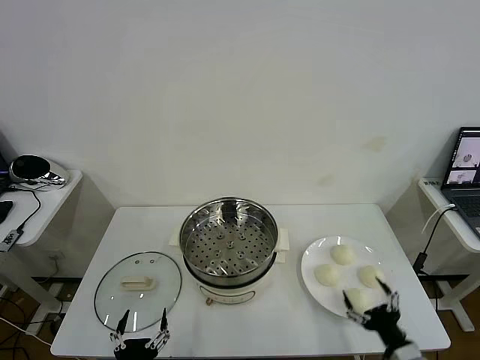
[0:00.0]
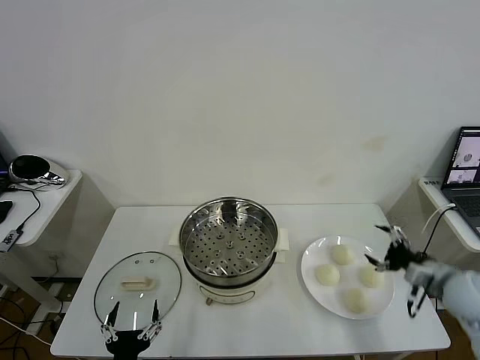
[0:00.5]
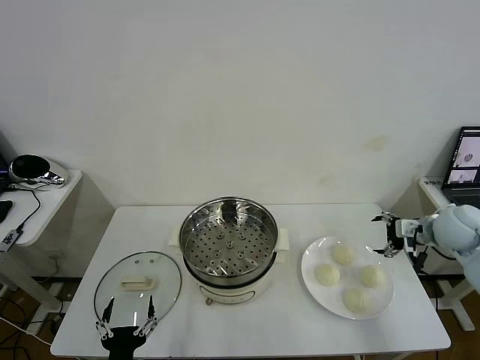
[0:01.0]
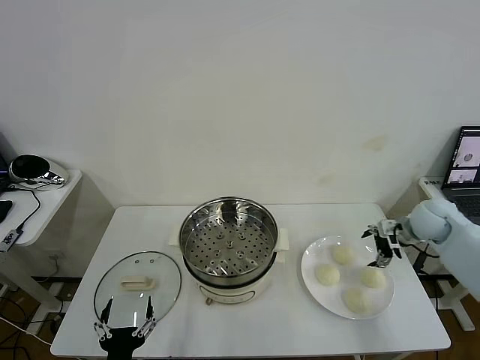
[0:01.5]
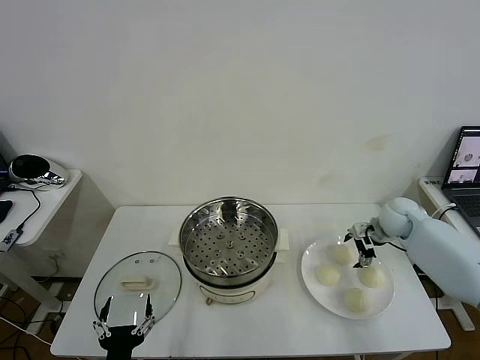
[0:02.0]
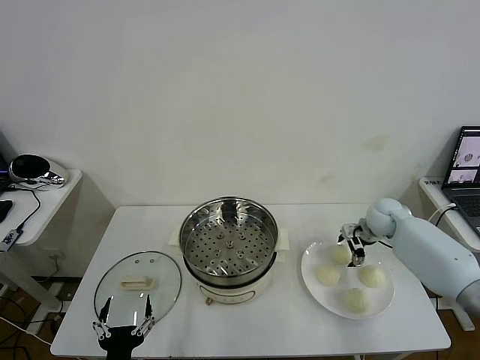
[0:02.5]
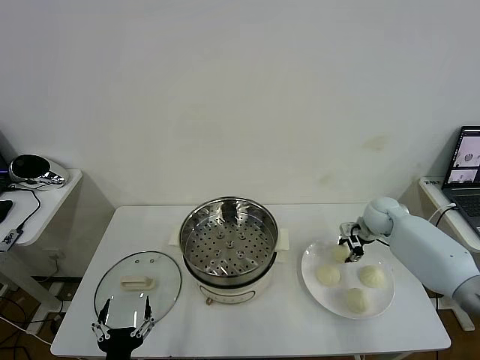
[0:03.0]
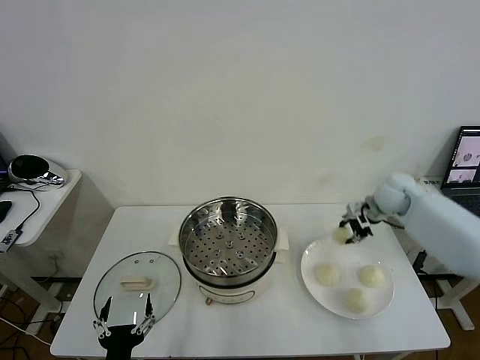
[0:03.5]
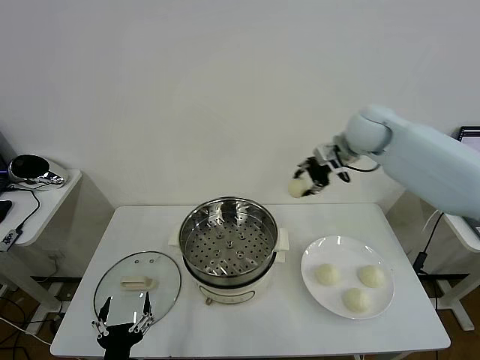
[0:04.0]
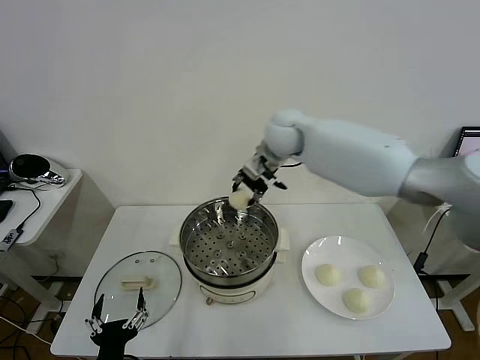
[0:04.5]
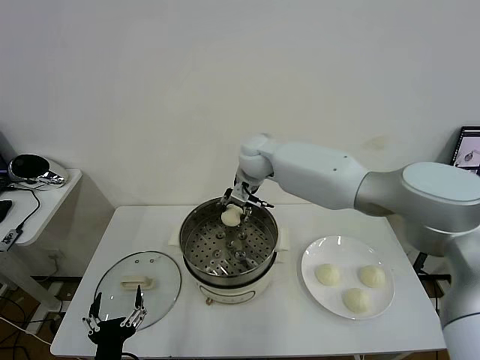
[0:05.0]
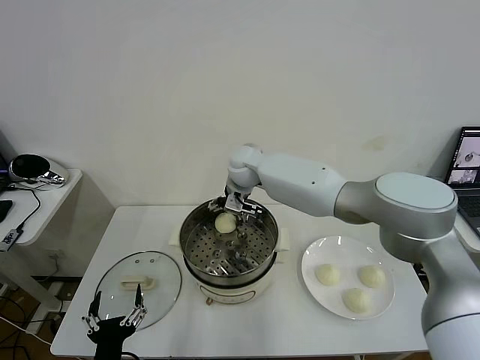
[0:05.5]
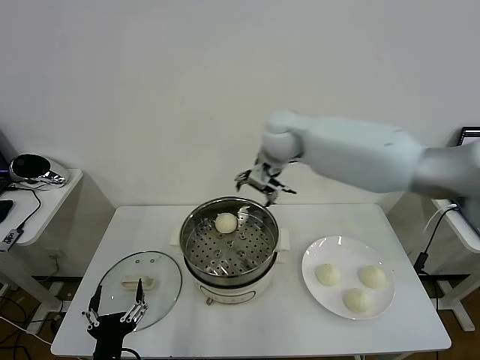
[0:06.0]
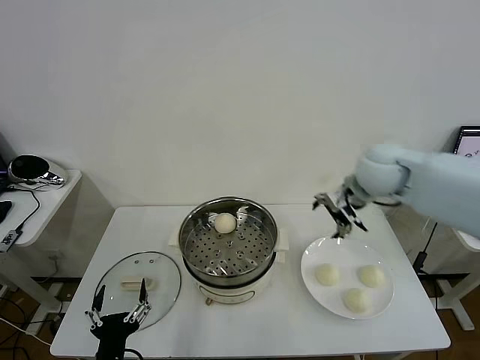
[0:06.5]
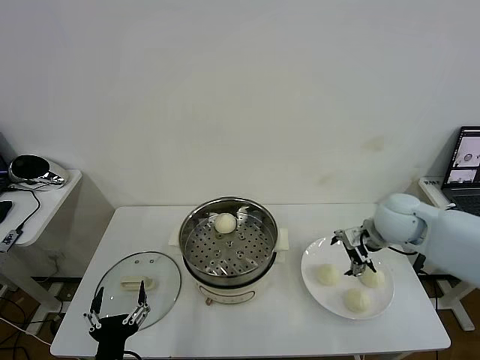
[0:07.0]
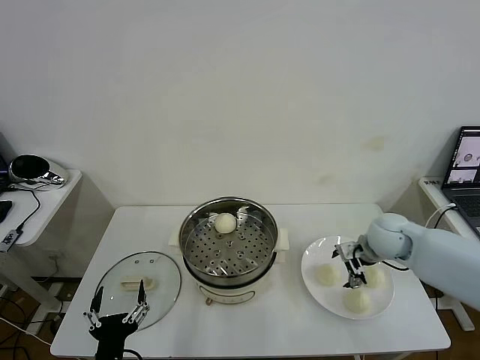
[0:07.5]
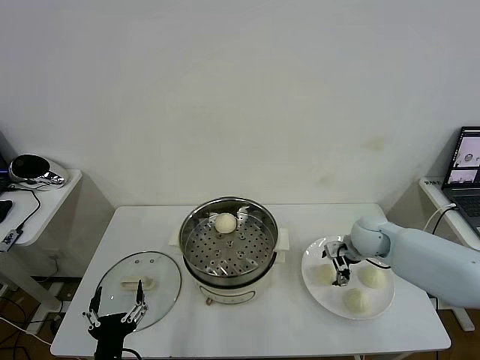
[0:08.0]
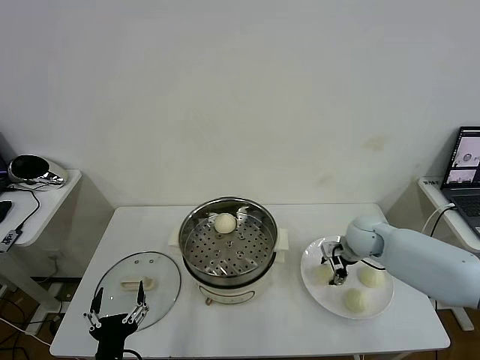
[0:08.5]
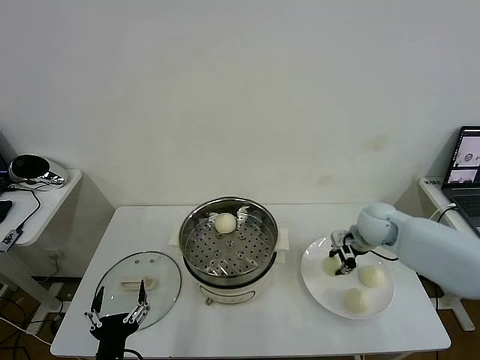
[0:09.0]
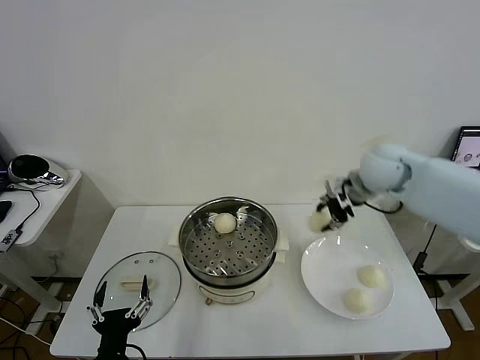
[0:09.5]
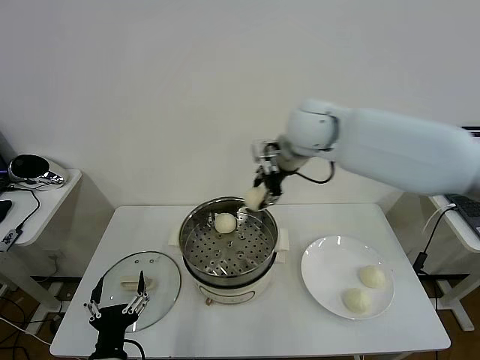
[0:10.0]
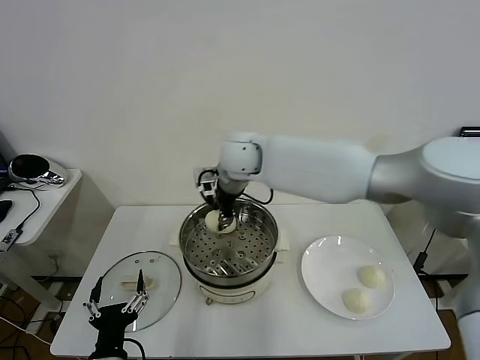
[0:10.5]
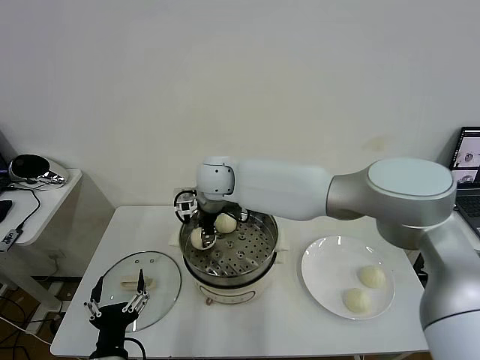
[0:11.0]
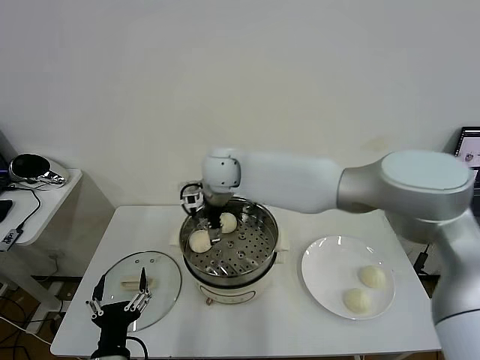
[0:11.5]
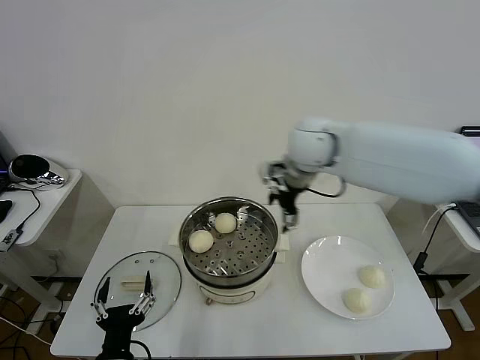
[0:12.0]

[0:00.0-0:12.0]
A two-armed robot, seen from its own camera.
Task of the whole recording: take steamed baozi put them in steamer then cover it.
Step, 0:00.0 to 0:02.5: Grasp the baozi in the plate with right gripper.
Step, 0:03.0 to 0:05.5: Place the baozi on the steamer with right gripper.
Step, 0:06.0 to 0:08.5: Grasp the baozi in the plate with right gripper.
Step, 0:09.0 to 0:11.0: Place the baozi on the steamer with right gripper.
0:02.0 to 0:04.0: The right gripper travels upward and to the left by approximately 30 cm, and closes.
0:04.0 to 0:06.0: The right gripper travels to the left by about 5 cm, and opens.
0:06.0 to 0:08.0: The right gripper is displaced downward and to the right by roughly 30 cm.
0:08.0 to 0:10.0: The right gripper shifts roughly 35 cm upward and to the left, and closes up.
0:10.0 to 0:12.0: The right gripper travels to the left and back again, roughly 15 cm each way, and opens its fingers.

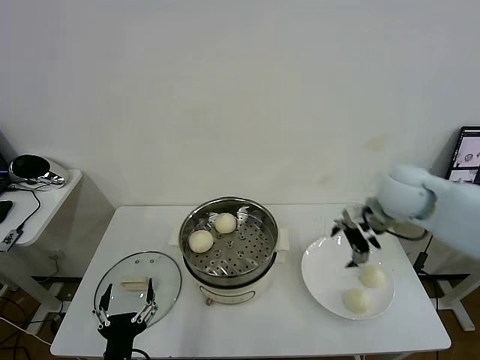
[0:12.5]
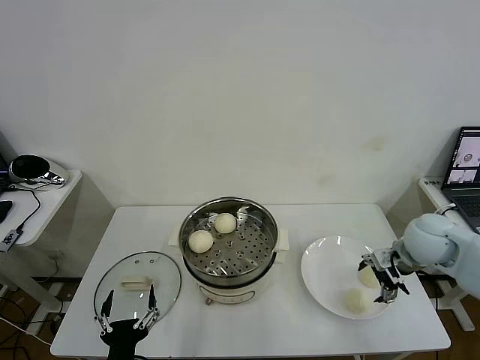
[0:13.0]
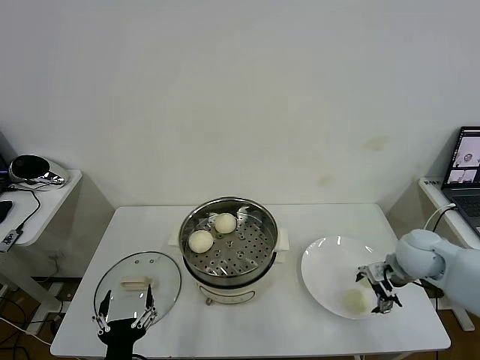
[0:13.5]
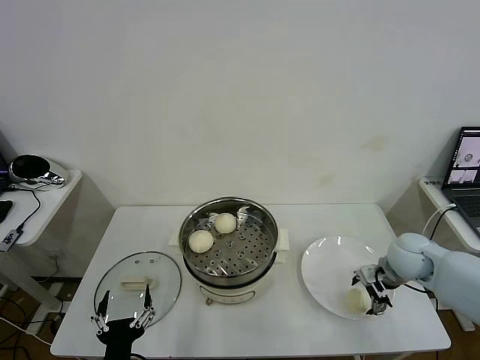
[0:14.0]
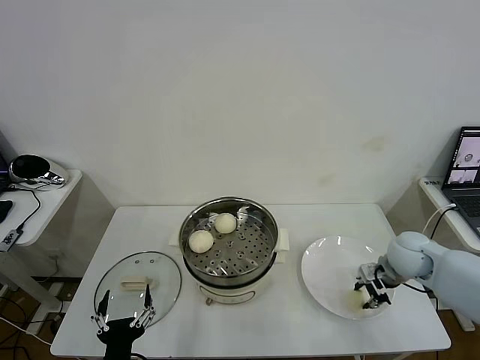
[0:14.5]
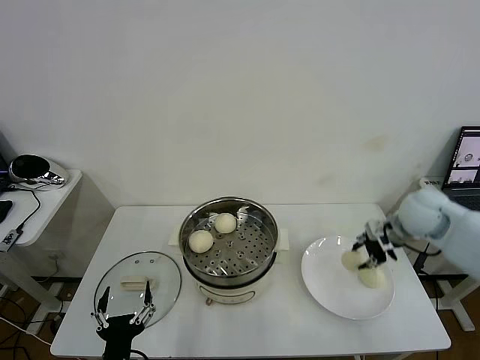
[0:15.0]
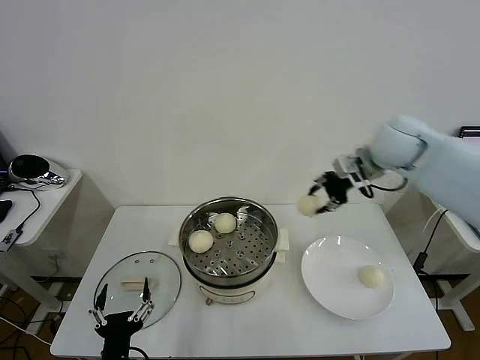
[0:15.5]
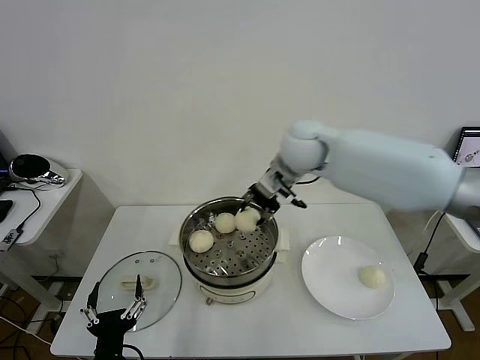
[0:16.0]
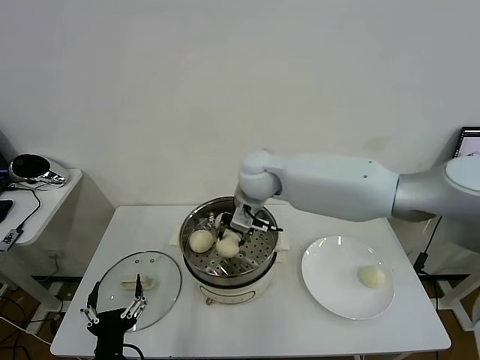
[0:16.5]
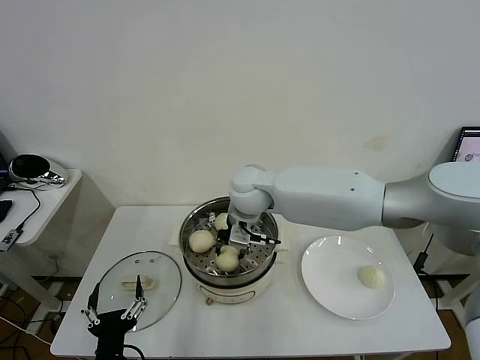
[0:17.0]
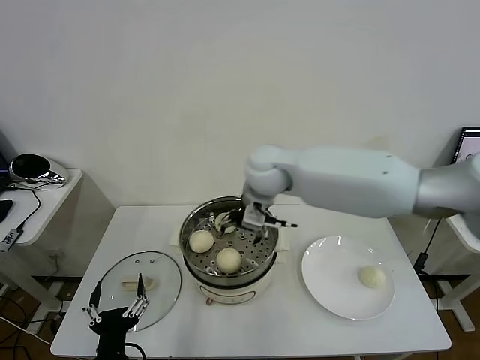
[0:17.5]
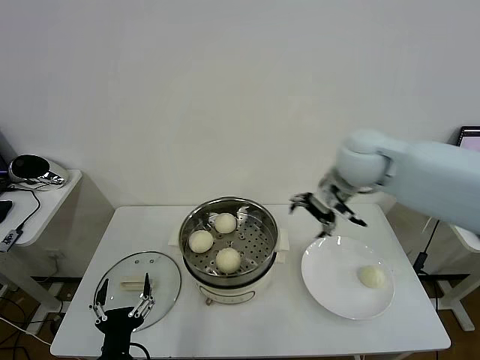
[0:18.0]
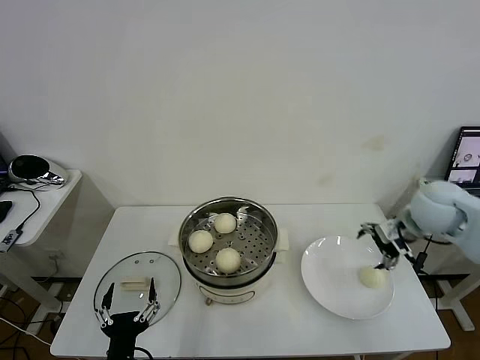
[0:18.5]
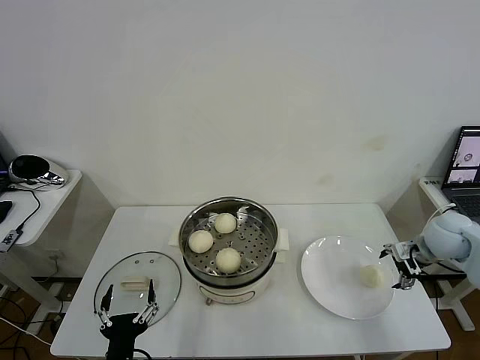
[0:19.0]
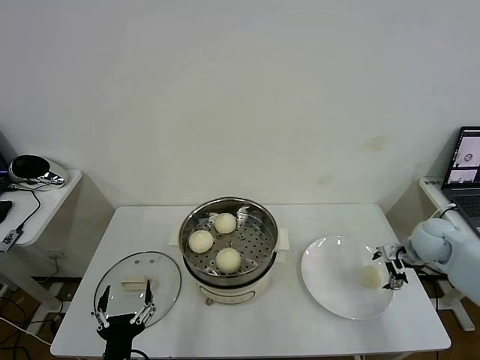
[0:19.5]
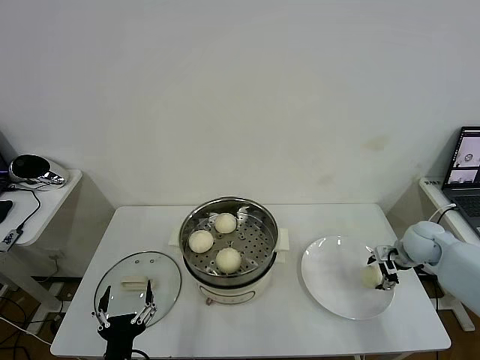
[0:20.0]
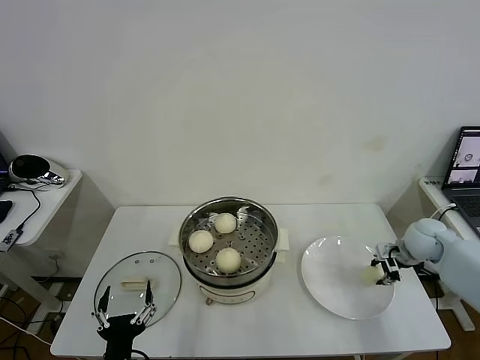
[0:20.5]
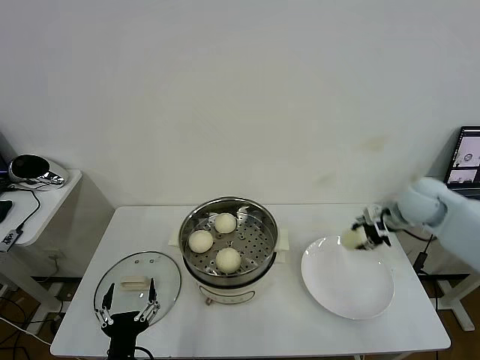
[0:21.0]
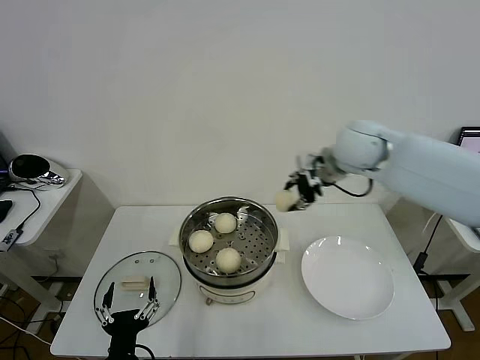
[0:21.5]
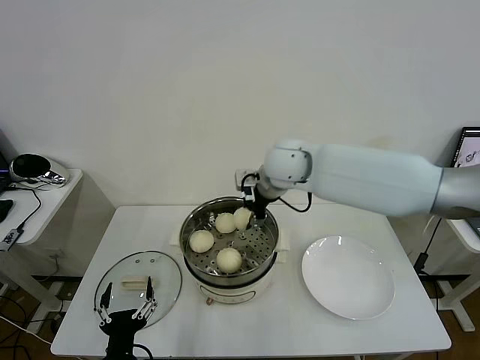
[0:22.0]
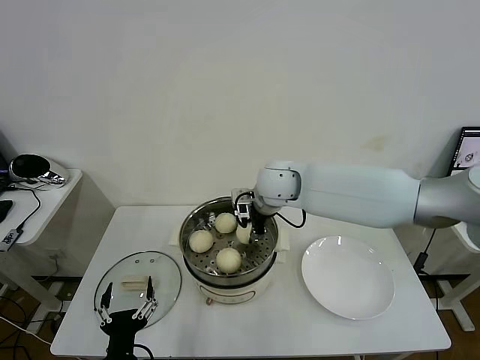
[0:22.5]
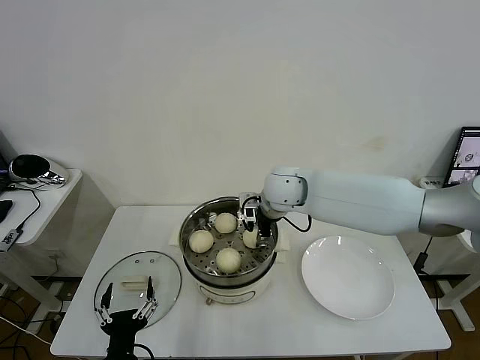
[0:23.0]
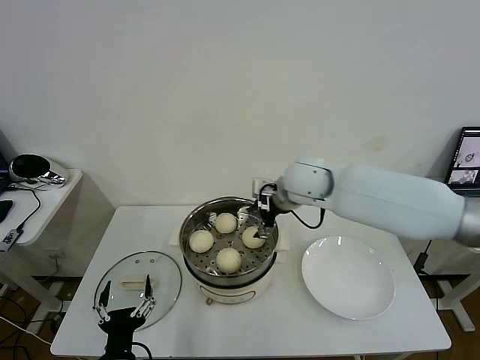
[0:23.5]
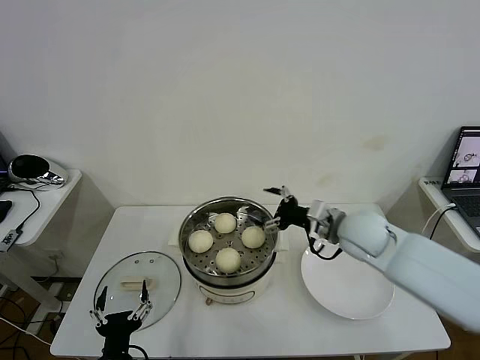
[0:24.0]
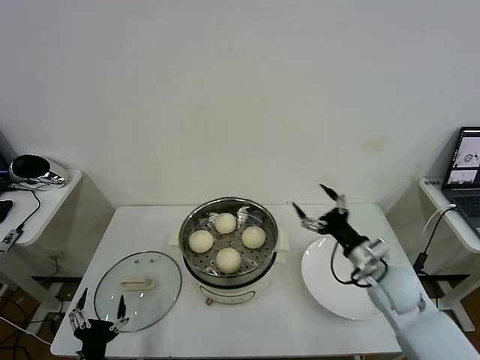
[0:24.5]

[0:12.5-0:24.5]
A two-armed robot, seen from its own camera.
Task of the whole recording: take steamed baozi put them in steamer then cover it.
Step, 0:12.5 to 0:14.0: Grasp the baozi in the plate with right gripper.
Step, 0:14.5 to 0:17.0: Place the baozi on the steamer with right gripper.
Step, 0:17.5 to 0:20.0: Grasp the baozi in the plate with right gripper.
Step, 0:20.5 to 0:23.0: Place the baozi on the steamer with right gripper.
0:12.5 to 0:14.5: The right gripper moves downward, about 15 cm, and closes up.
0:14.5 to 0:16.5: The right gripper shifts about 35 cm to the left and upward.
0:16.5 to 0:18.5: The right gripper goes roughly 35 cm to the right, and opens its fingers.
0:18.5 to 0:20.5: The right gripper travels downward and to the right by approximately 15 cm, and closes.
0:20.5 to 0:22.5: The right gripper moves to the left, roughly 35 cm.
0:22.5 to 0:24.5: The left gripper shifts approximately 5 cm to the left. Meanwhile the right gripper heads to the right, backward and downward, covering roughly 30 cm, and opens up.

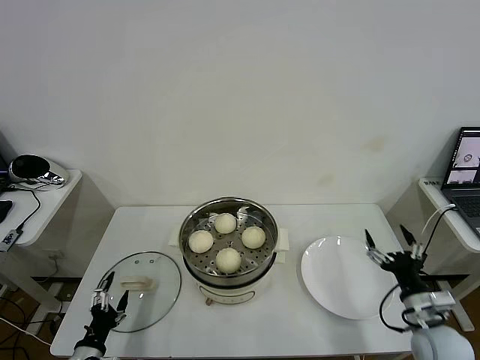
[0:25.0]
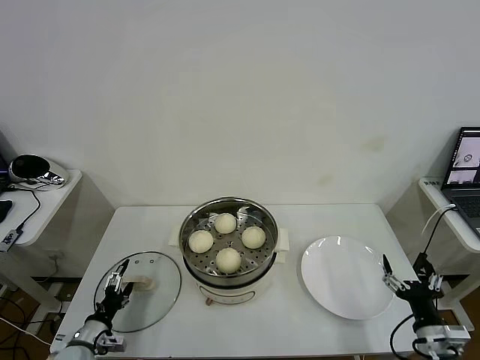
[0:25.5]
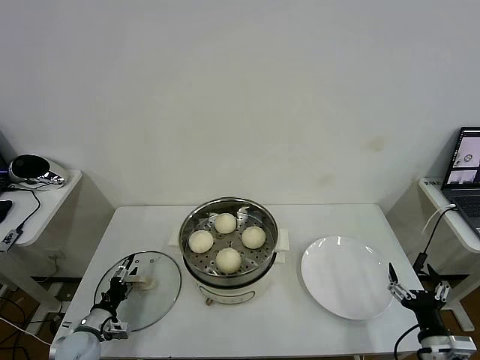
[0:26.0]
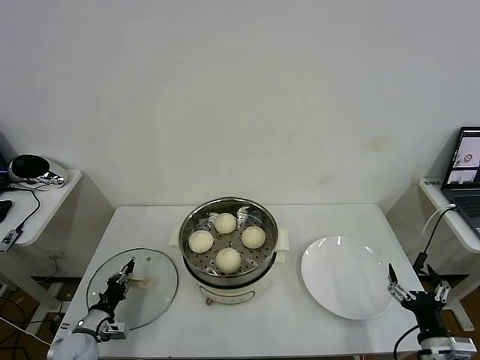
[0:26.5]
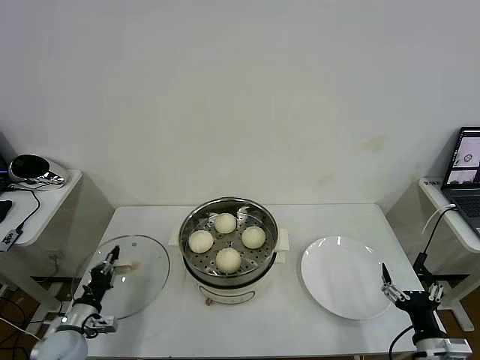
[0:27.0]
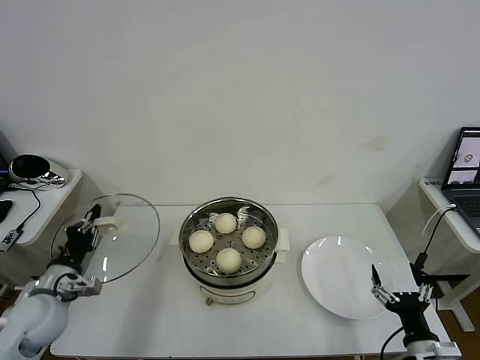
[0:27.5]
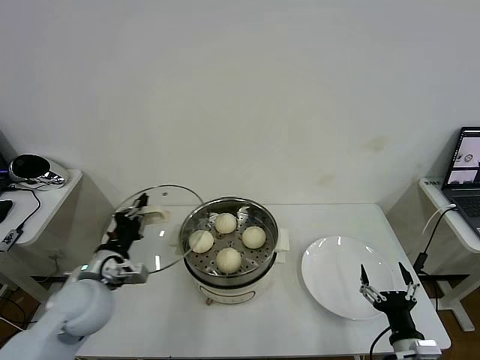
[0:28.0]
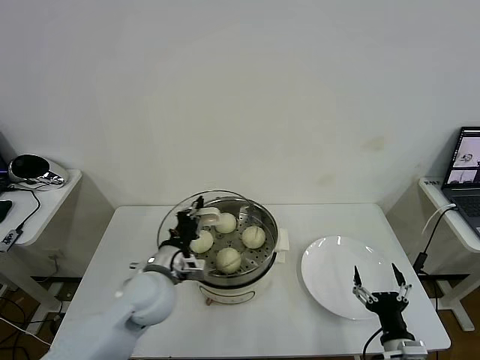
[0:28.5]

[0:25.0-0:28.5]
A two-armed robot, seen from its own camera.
Task of the whole recording: take steamed baozi put them in steamer then cover it.
0:25.0 to 0:27.0: The right gripper goes some 10 cm backward; the left gripper travels forward by roughly 10 cm, and closes its fingers.
0:27.0 to 0:28.5: The left gripper moves to the right and upward, some 25 cm. Meanwhile the right gripper shifts some 5 cm to the left.
